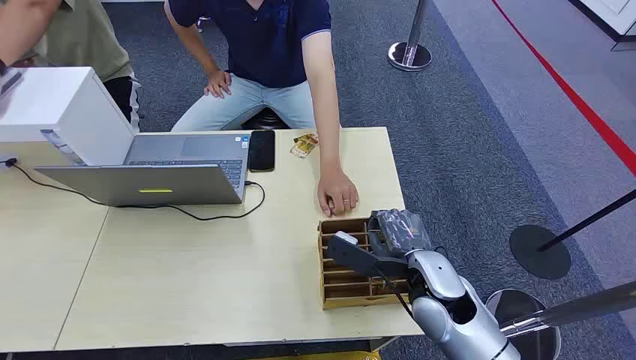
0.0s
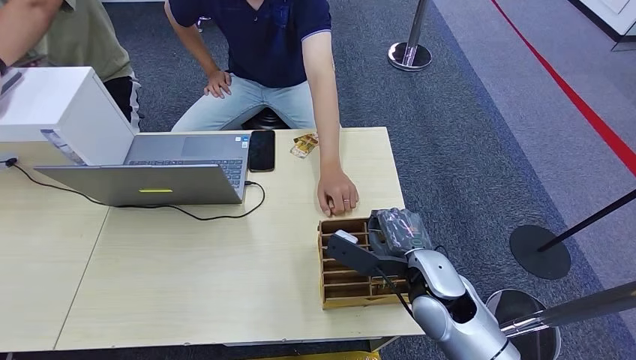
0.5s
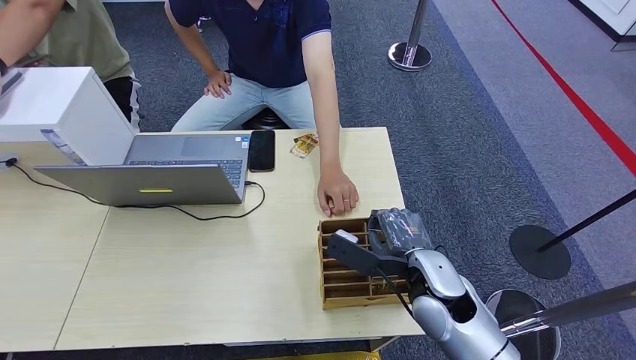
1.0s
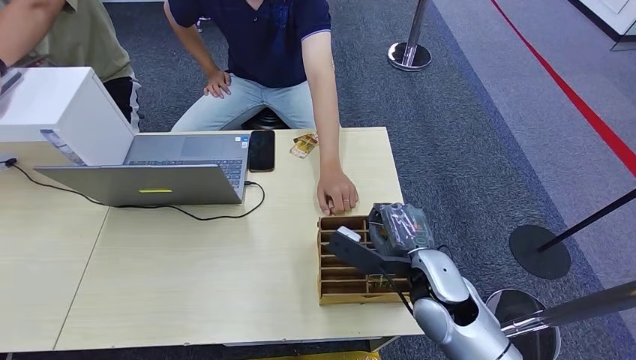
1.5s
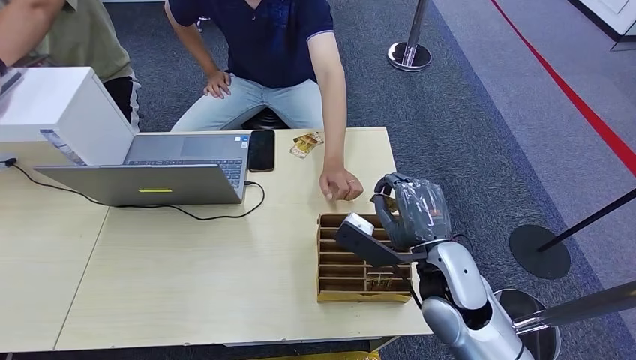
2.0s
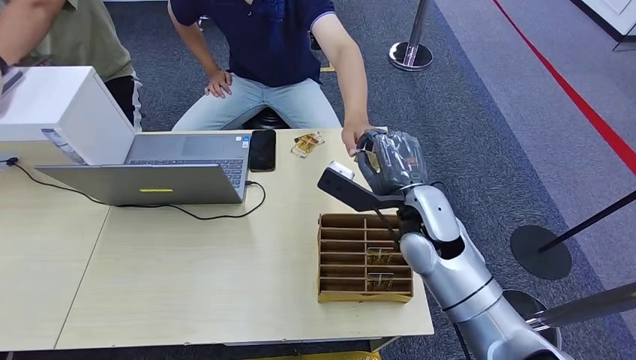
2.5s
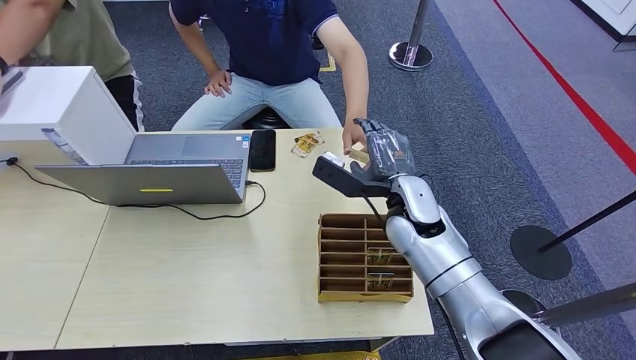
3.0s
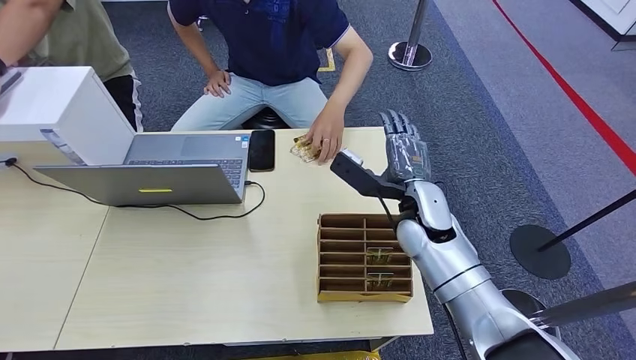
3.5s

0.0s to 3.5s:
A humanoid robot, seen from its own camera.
Step, 0.0s to 2.0s: Pick up the key card from the card box.
Step, 2.5s to 3.5s: Hand the key card to the target.
2.0s to 3.5s: The right hand travels forward by about 10 cm.
